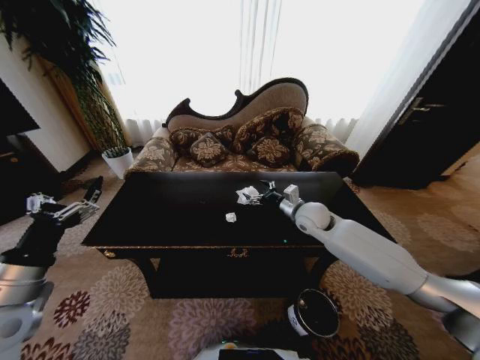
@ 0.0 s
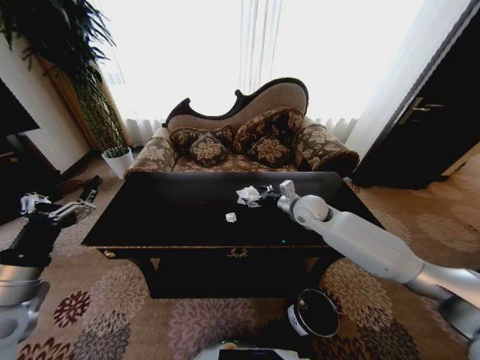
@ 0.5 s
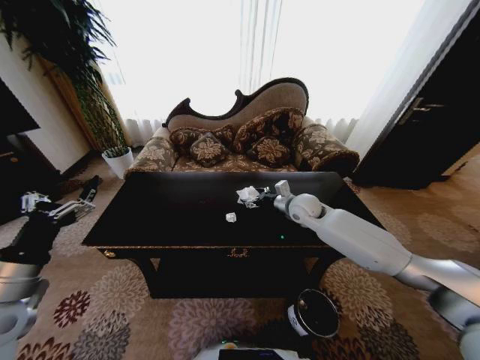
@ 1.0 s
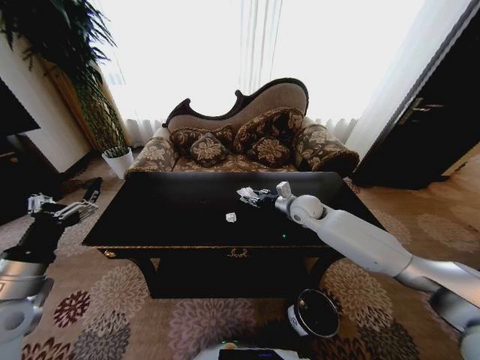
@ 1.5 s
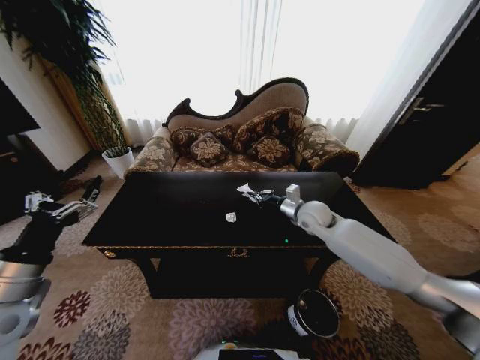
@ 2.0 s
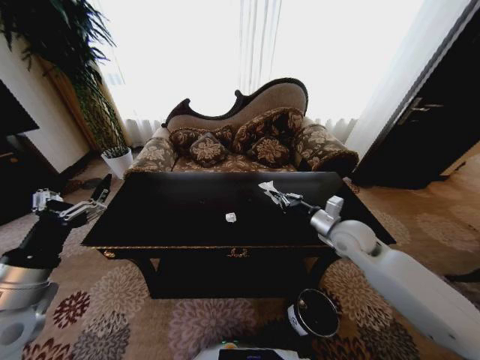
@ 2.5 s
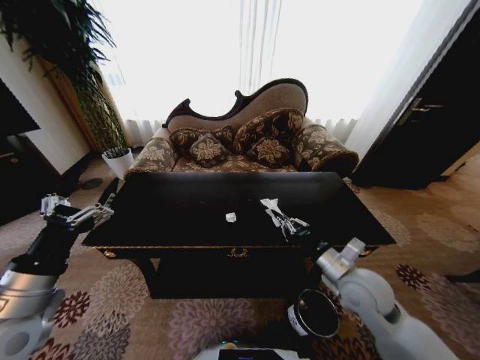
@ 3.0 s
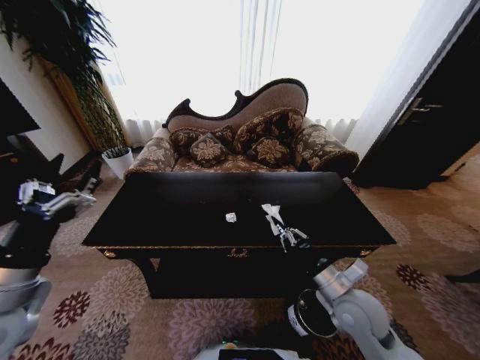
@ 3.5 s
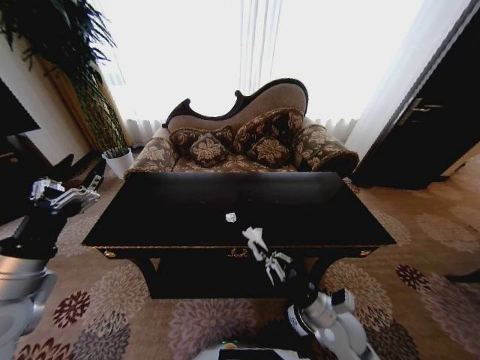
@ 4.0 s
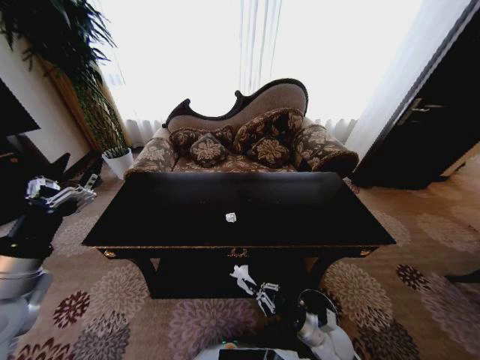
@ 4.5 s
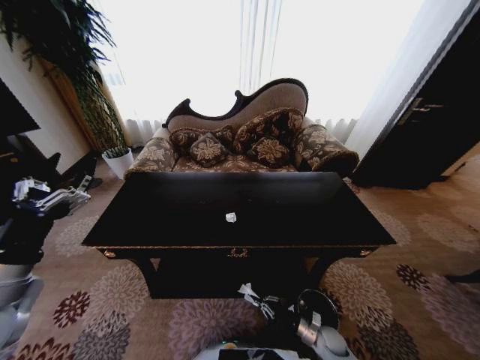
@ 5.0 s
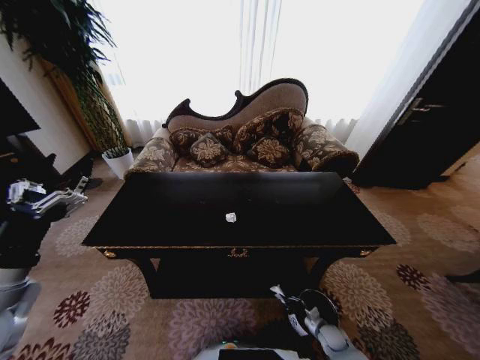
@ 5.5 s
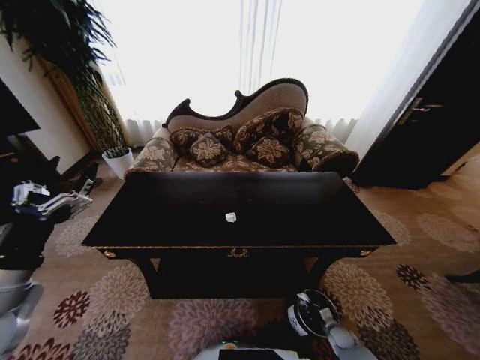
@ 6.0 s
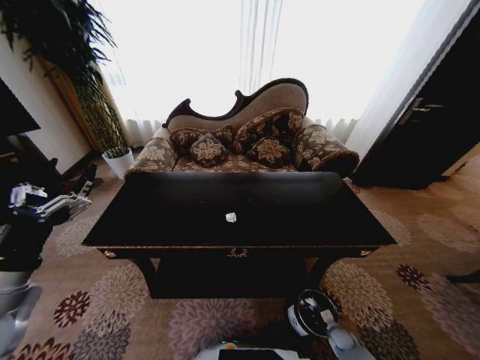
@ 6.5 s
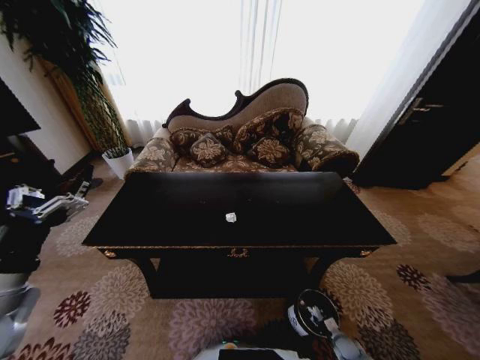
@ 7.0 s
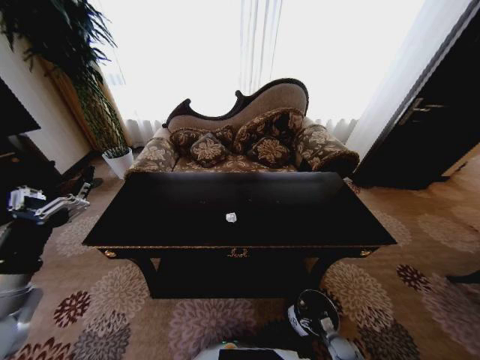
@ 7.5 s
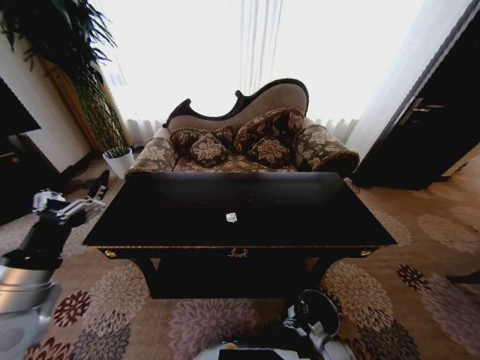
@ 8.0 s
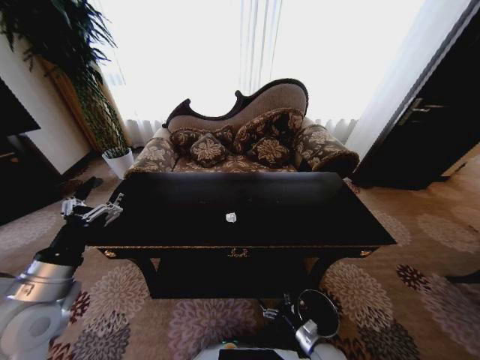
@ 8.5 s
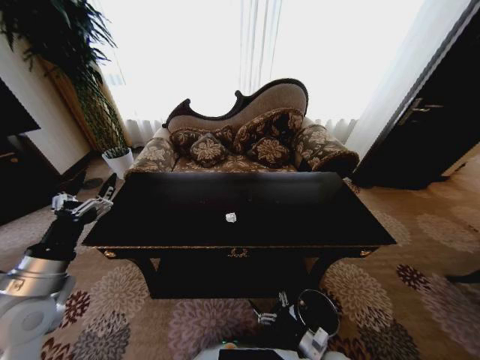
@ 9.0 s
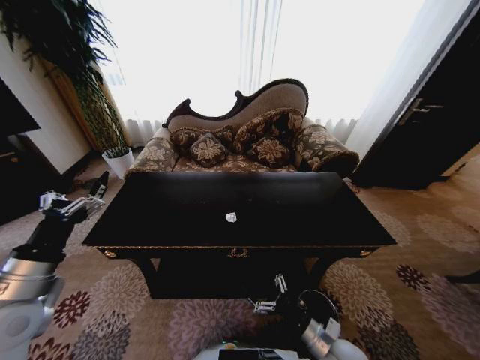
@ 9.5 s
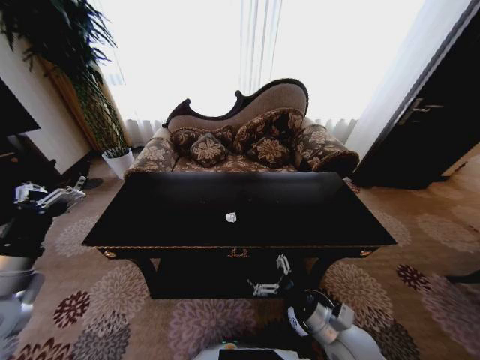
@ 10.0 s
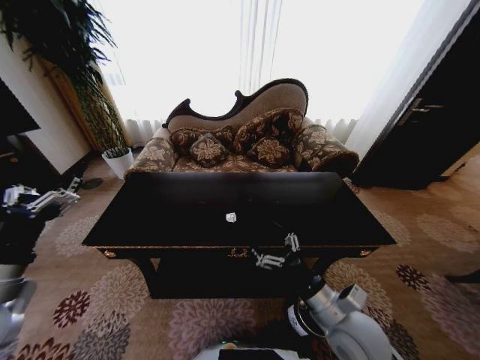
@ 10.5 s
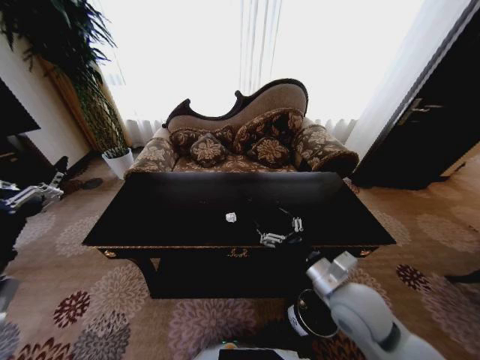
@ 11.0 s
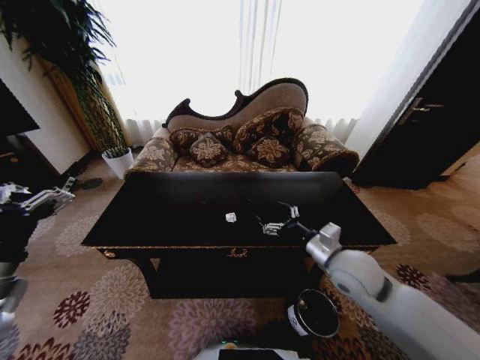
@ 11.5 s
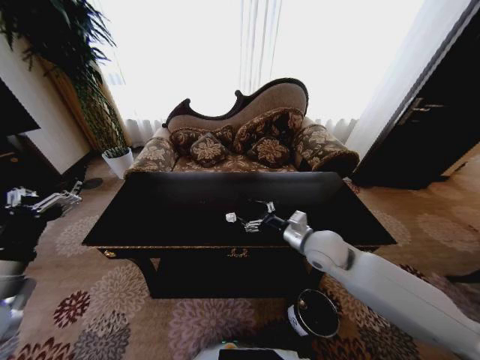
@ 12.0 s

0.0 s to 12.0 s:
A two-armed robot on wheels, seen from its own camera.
Task of the whole recording: Move to the front of the table and place the trash on the table into the trash bin.
0.0 to 2.0 s: The right gripper closes up.
2.0 to 4.0 s: The right gripper travels backward and downward by about 30 cm.
4.0 to 6.0 s: The right gripper heads downward and to the right, covering about 35 cm.
6.0 to 8.0 s: The right gripper heads to the left, covering about 5 cm, and opens its fingers.
8.0 to 10.0 s: The right gripper shifts some 35 cm upward and to the left.
10.0 to 12.0 s: The right gripper goes approximately 20 cm forward and upward.

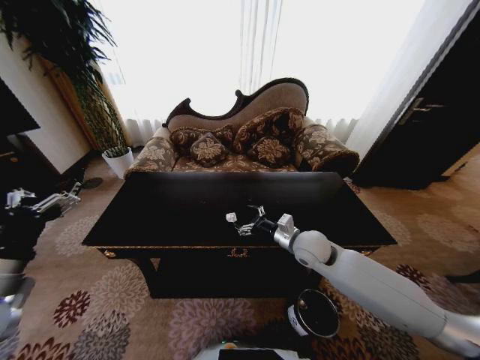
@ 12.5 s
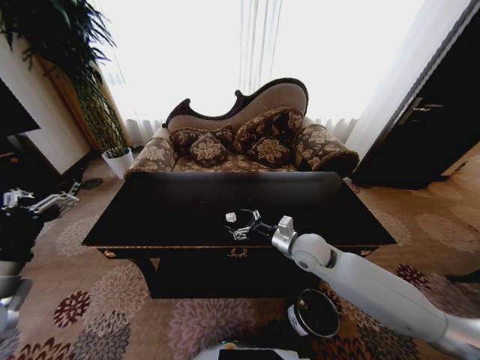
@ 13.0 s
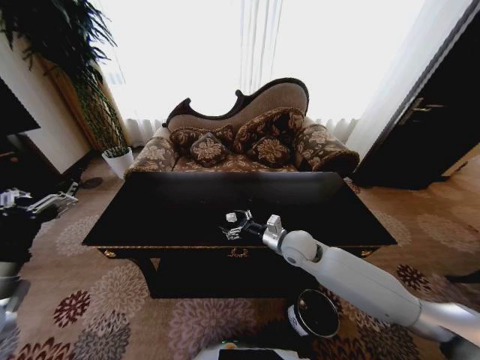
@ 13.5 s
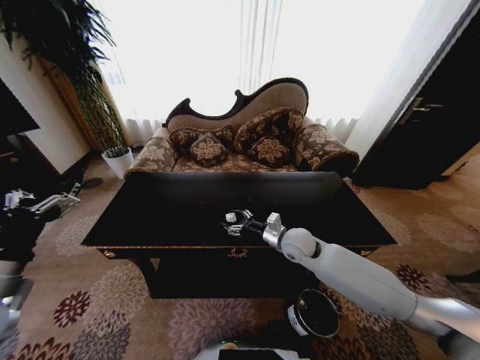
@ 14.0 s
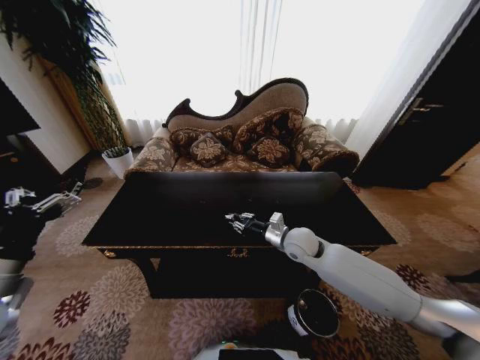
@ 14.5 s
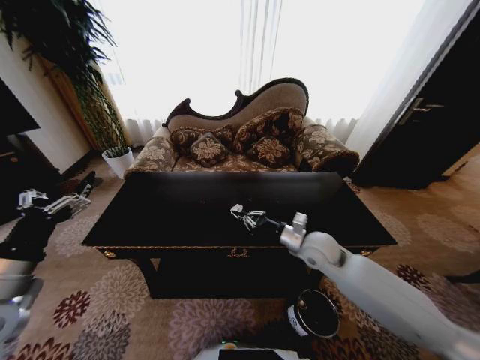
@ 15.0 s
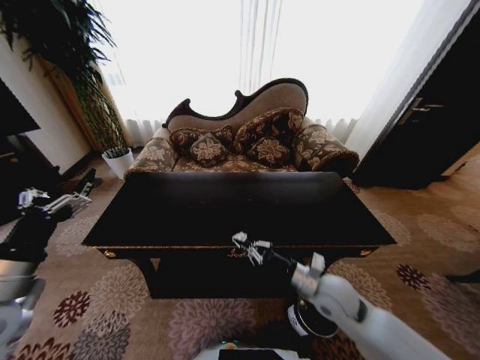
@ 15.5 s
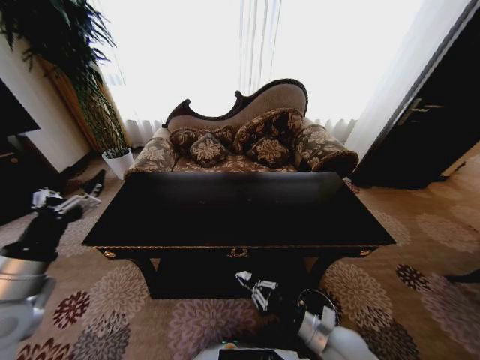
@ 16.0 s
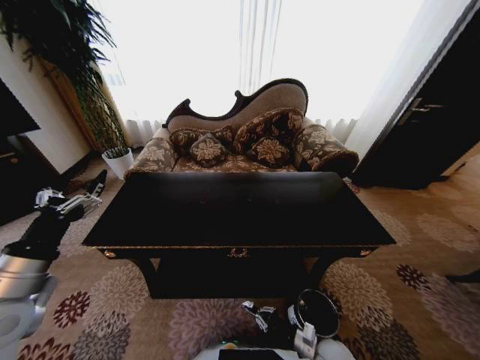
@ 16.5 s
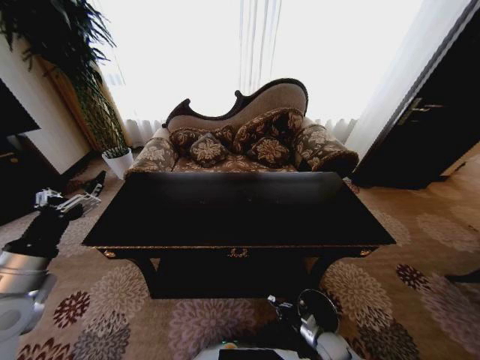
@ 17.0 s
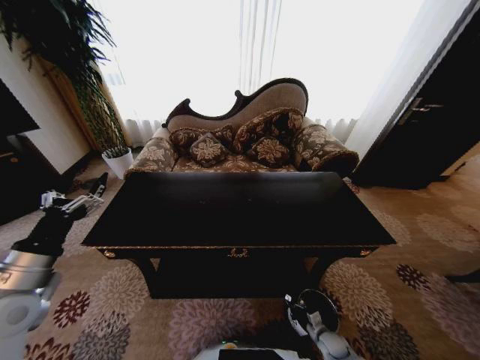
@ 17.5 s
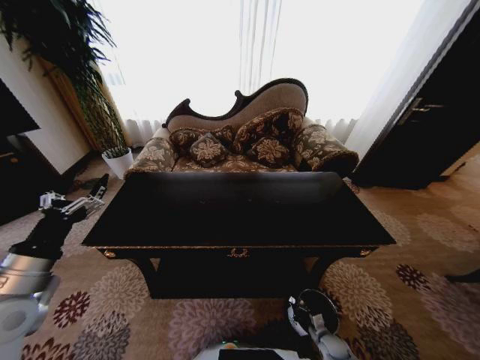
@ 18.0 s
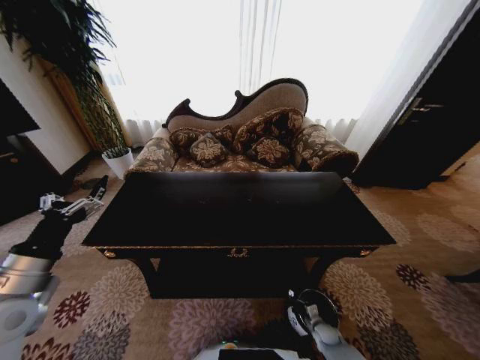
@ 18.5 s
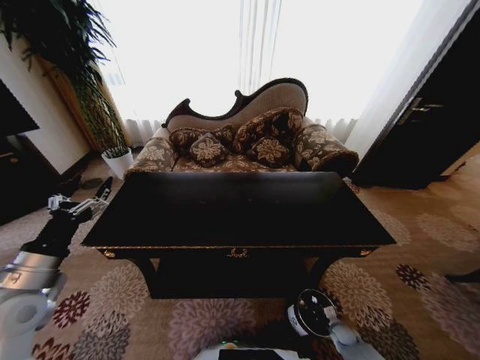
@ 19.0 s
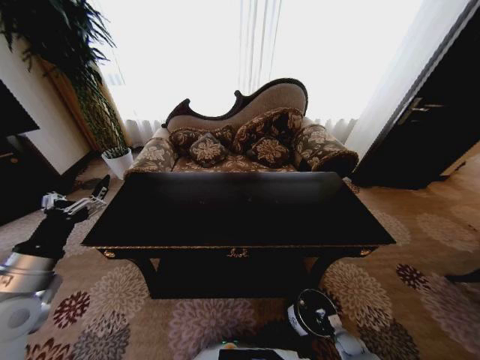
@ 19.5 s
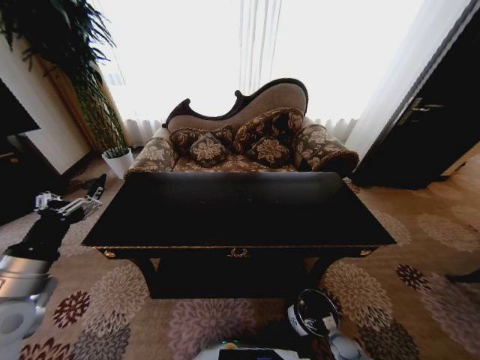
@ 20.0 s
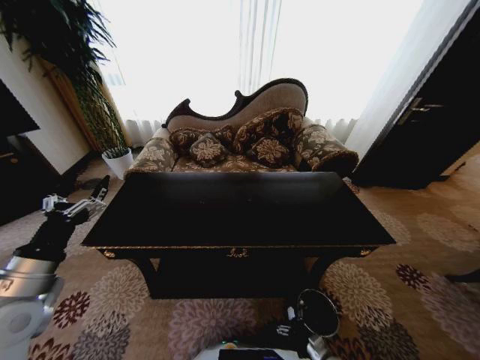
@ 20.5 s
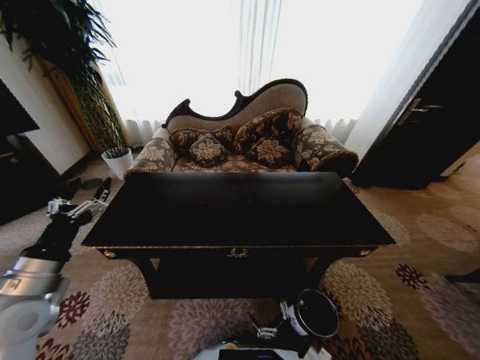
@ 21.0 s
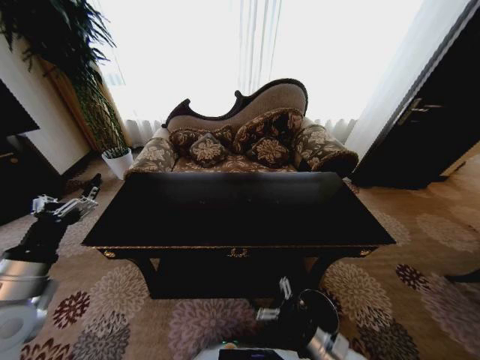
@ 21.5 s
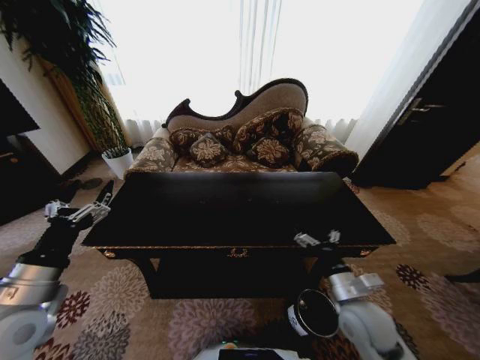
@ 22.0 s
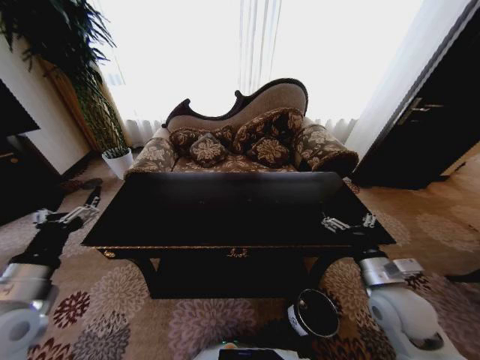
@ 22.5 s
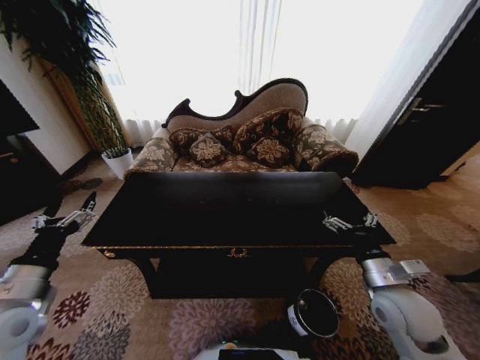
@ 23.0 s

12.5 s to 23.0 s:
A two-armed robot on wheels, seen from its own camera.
Task of the whole recording: Move to the front of the table and place the trash on the table into the trash bin.
12.5 to 14.5 s: The right gripper closes its fingers.
14.5 to 16.5 s: The right gripper goes some 30 cm backward and downward.
16.5 to 19.0 s: The right gripper goes roughly 25 cm downward and to the right.
19.0 to 21.0 s: The right gripper heads upward, to the left and backward, covering some 25 cm, and opens up.
21.0 to 23.0 s: The right gripper travels upward and forward by some 25 cm.

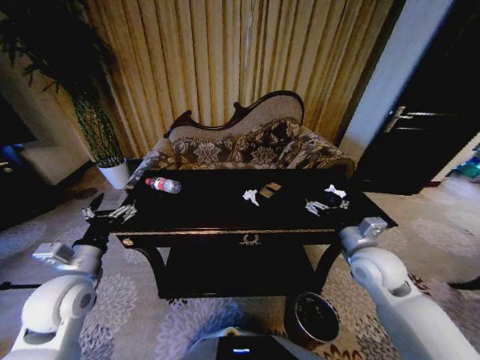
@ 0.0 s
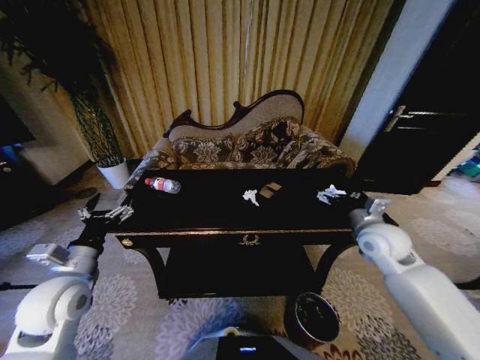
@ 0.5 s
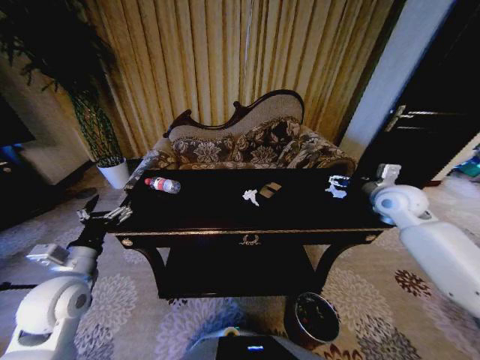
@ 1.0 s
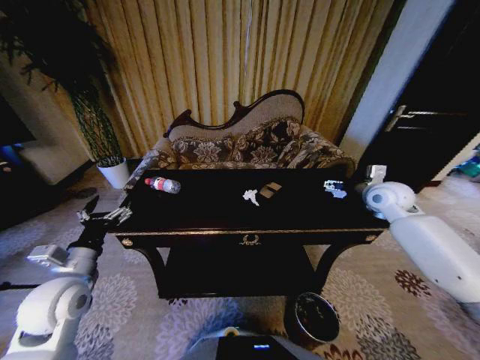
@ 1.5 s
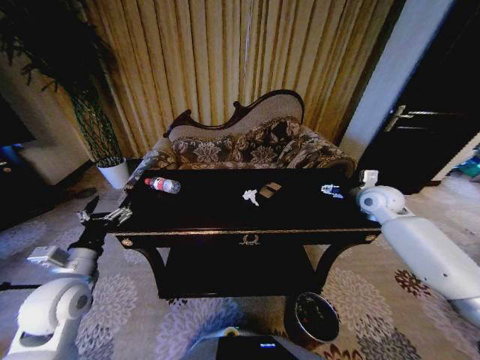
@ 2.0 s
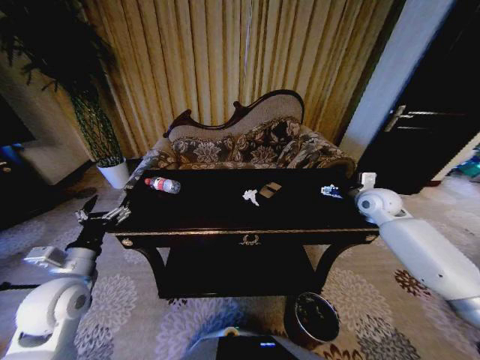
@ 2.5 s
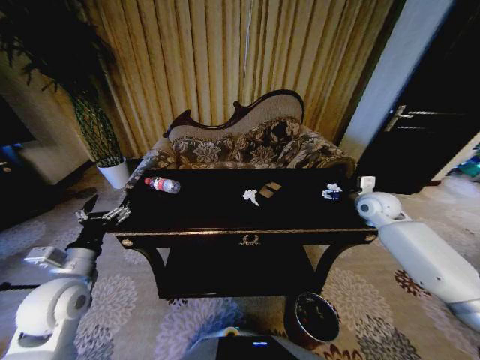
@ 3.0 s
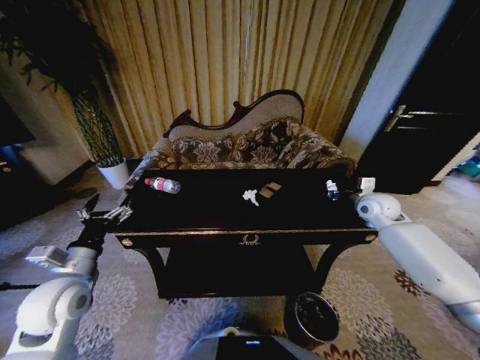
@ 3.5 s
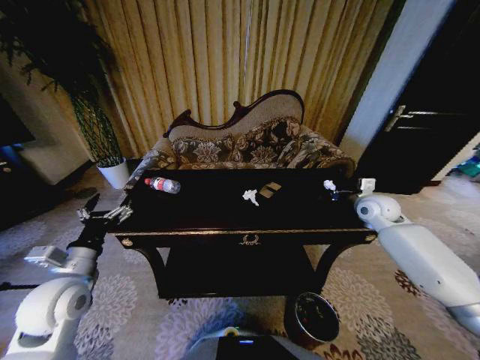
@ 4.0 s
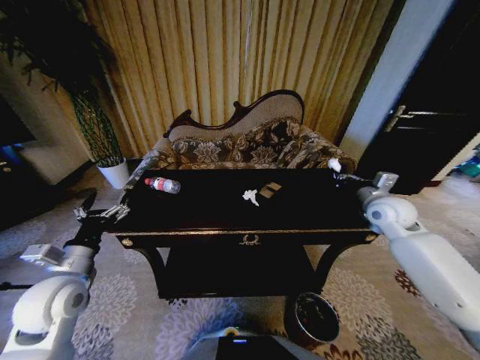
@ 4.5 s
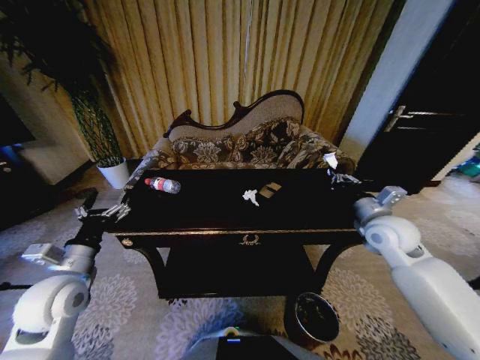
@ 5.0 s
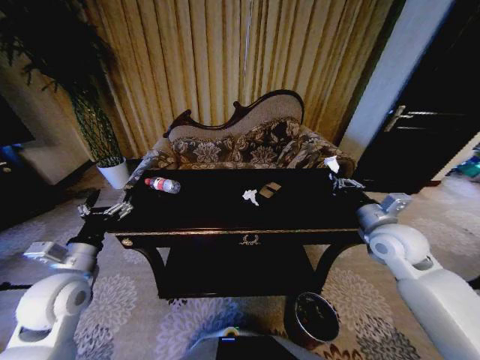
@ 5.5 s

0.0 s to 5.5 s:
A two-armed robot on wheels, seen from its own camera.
Task of the whole recording: Move to the front of the table and place the trash on the table into the trash bin.
0.0 to 2.0 s: The right gripper travels forward and to the right by about 20 cm.
2.0 to 3.5 s: The right gripper closes.
3.5 to 5.5 s: The right gripper heads backward and to the left, covering approximately 15 cm, and closes up.
